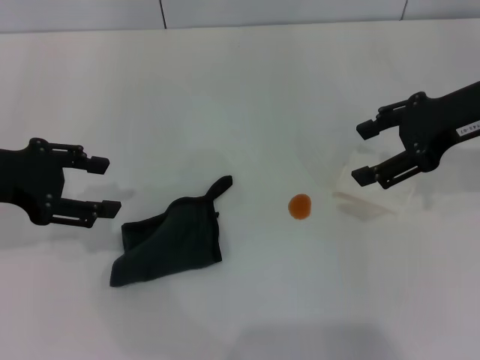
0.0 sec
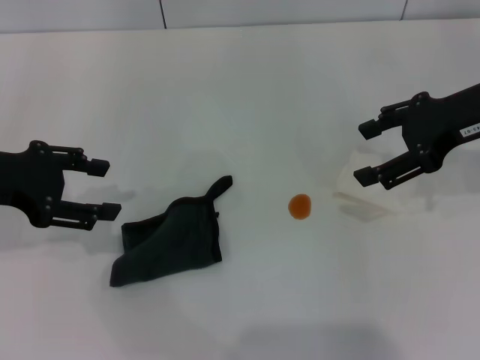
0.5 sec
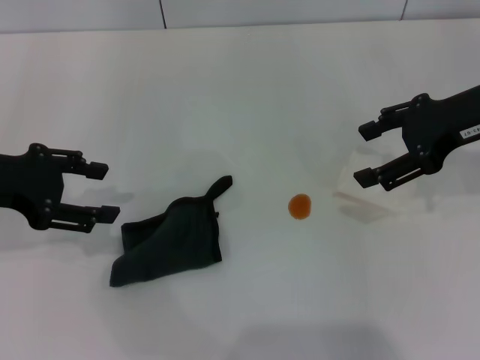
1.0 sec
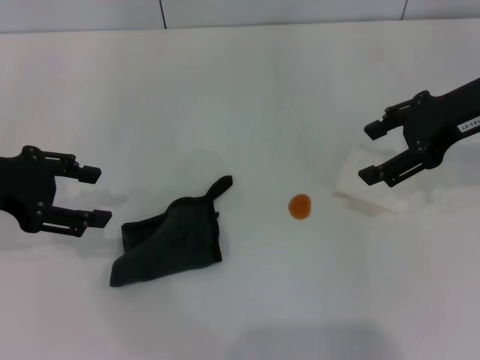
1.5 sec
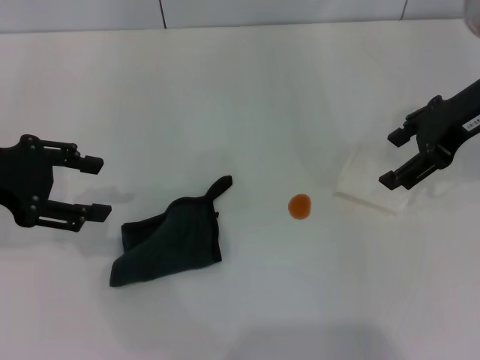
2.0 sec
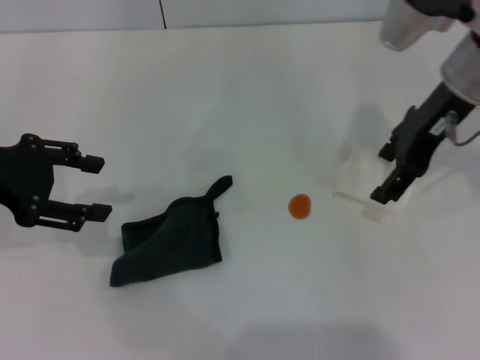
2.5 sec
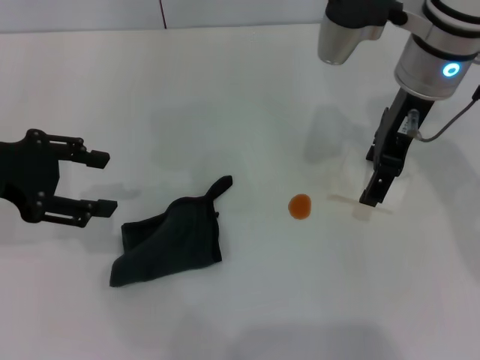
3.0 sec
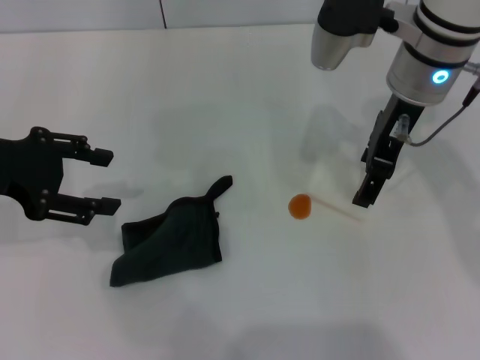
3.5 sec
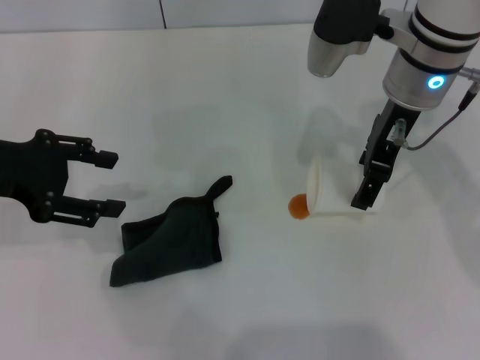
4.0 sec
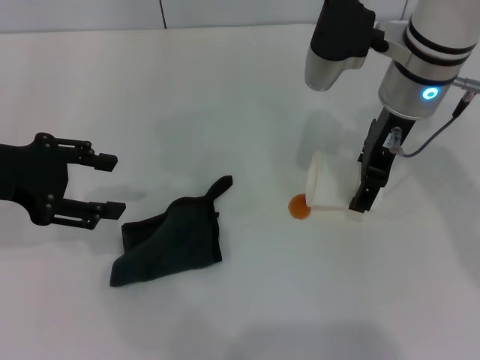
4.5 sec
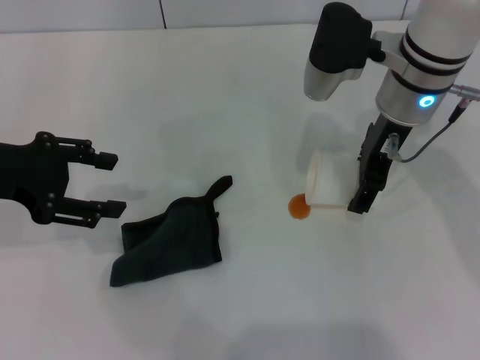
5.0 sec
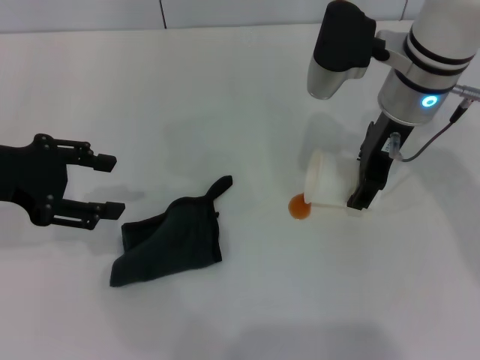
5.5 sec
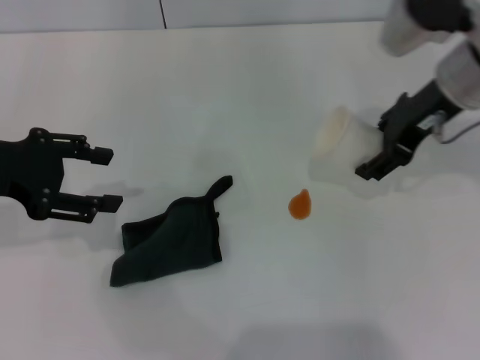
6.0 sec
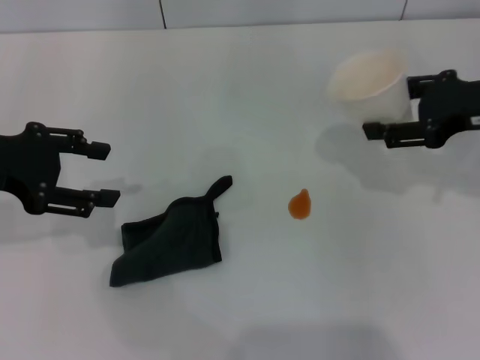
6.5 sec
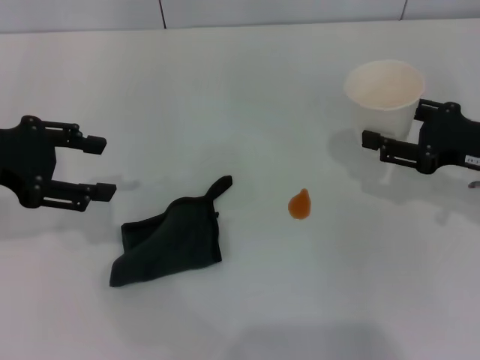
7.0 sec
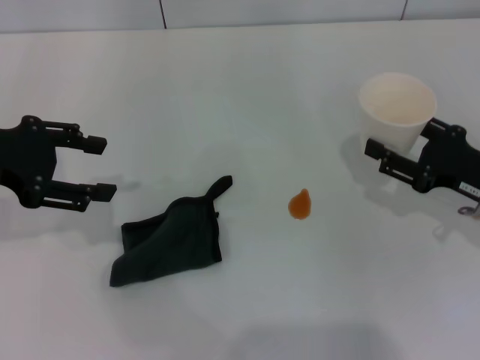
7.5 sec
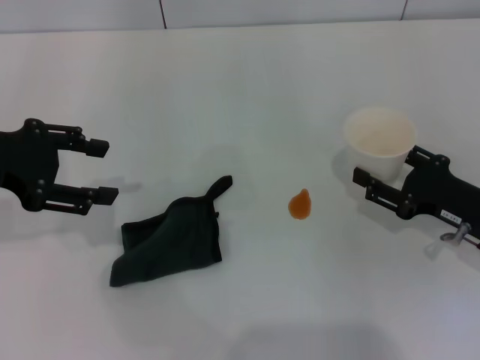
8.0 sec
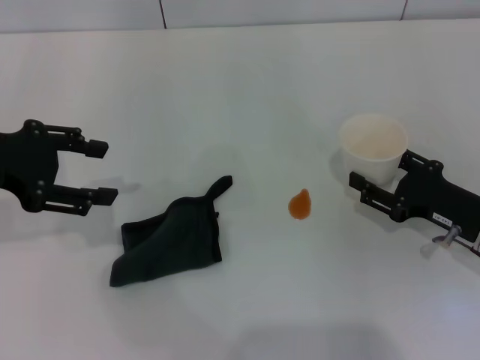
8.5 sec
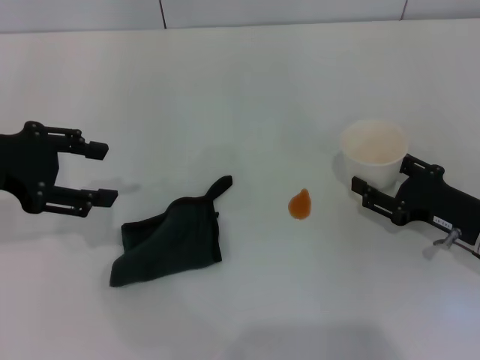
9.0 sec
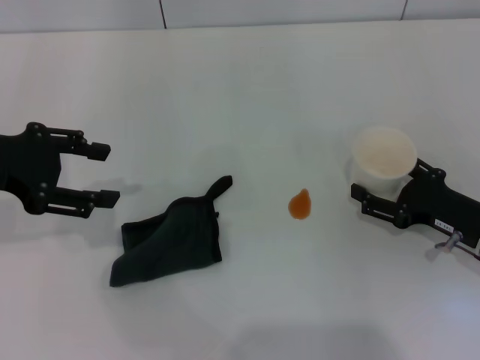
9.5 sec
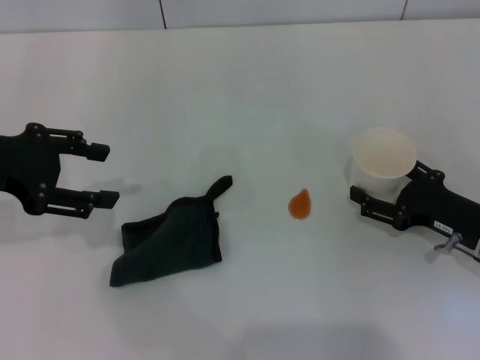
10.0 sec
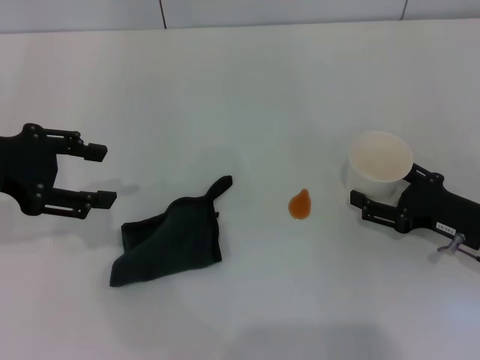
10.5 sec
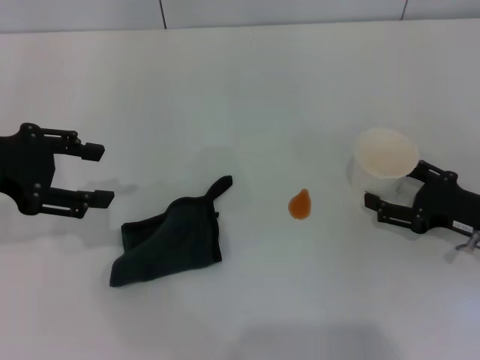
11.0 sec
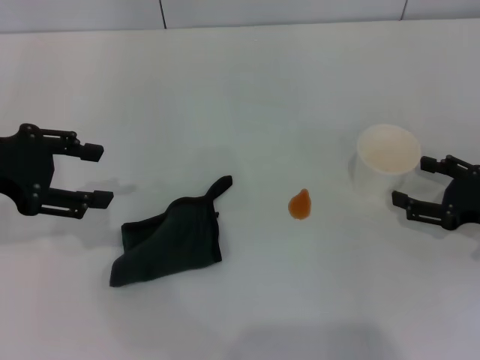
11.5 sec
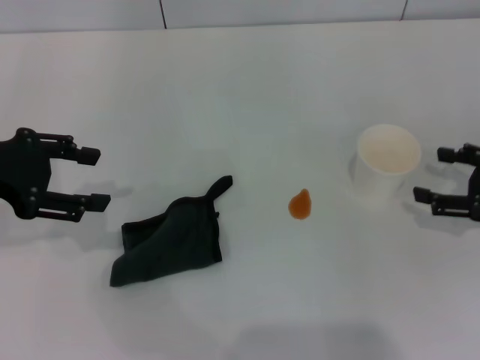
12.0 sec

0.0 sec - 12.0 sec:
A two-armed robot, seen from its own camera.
Step, 0.0 sec - 5.5 sec: Grasp the paper cup with the right gripper.
Step, 6.0 sec - 11.5 sec: Stand the paper cup upright with the right gripper.
0.0 sec - 2.0 sec: The grippers make only small movements.
2.0 sec - 4.0 sec: The right gripper moves to the left, some 10 cm.
4.0 sec - 6.0 sec: The right gripper shifts roughly 5 cm to the right, and closes.
6.0 sec - 8.0 sec: The right gripper heads downward, backward and to the right, covering approximately 20 cm.
8.0 sec - 10.0 sec: The right gripper opens.
10.0 sec - 12.0 sec: The right gripper goes some 10 cm to the right and upward.

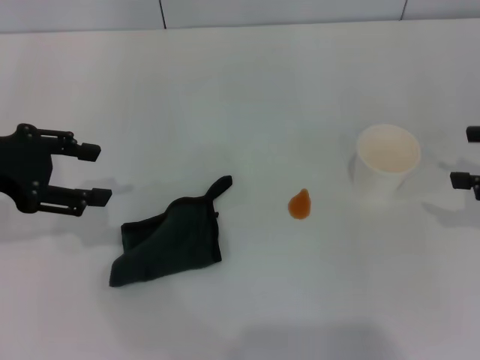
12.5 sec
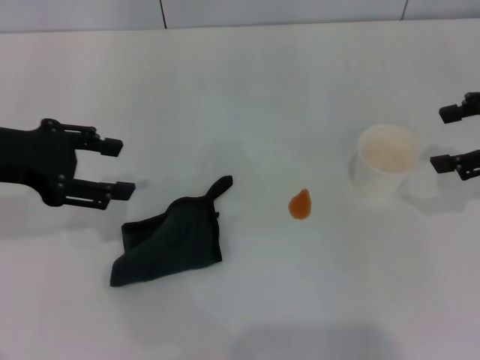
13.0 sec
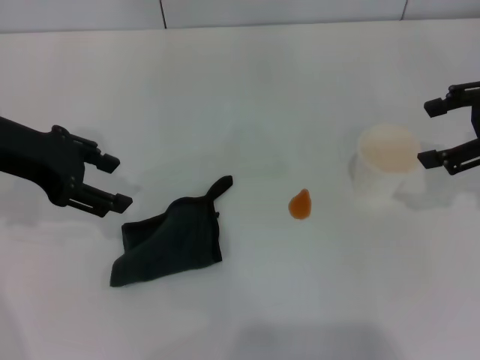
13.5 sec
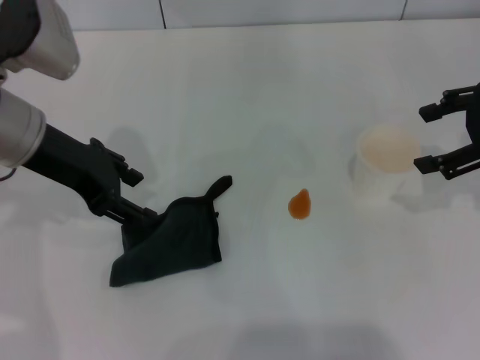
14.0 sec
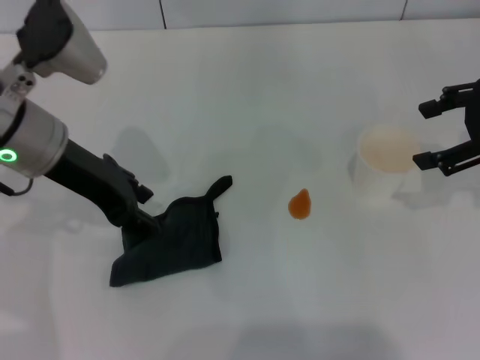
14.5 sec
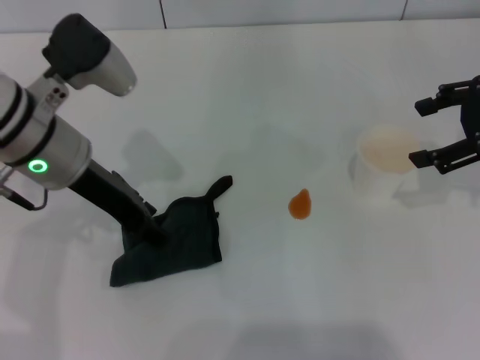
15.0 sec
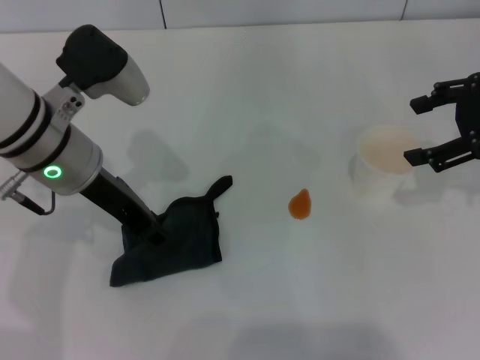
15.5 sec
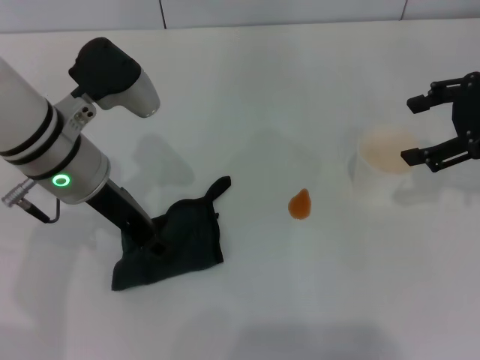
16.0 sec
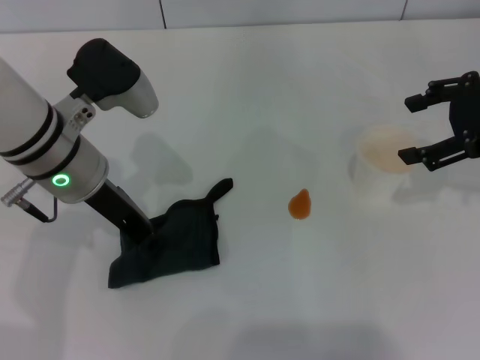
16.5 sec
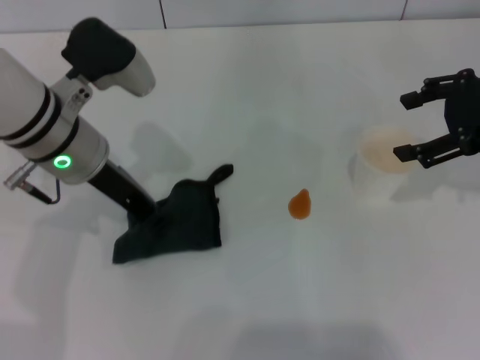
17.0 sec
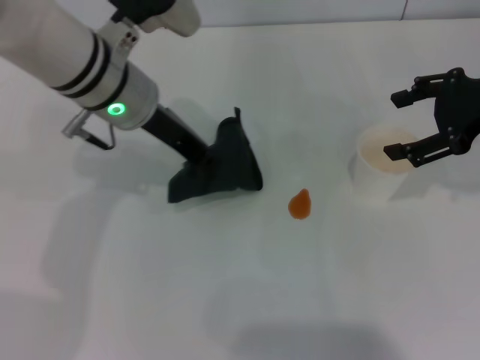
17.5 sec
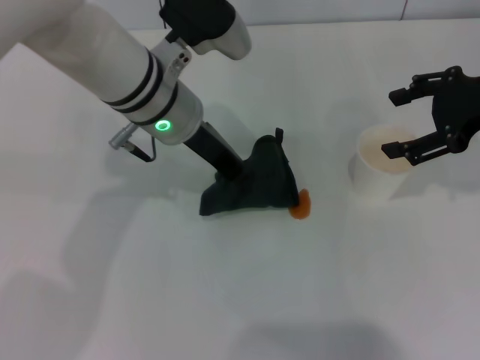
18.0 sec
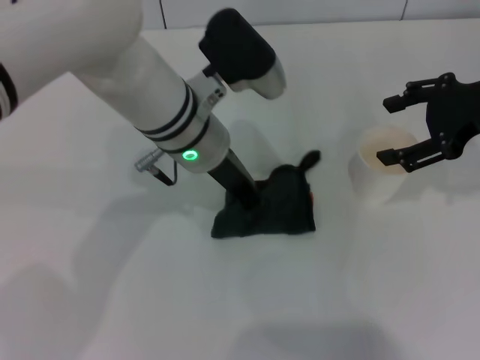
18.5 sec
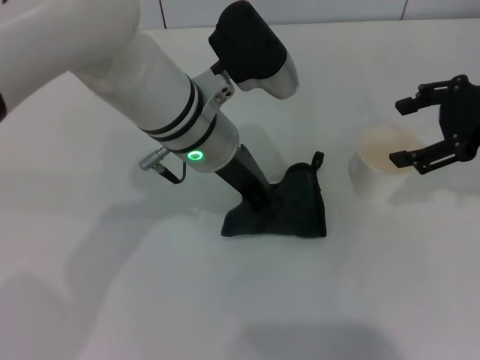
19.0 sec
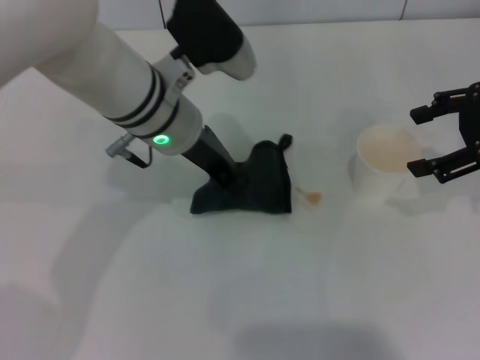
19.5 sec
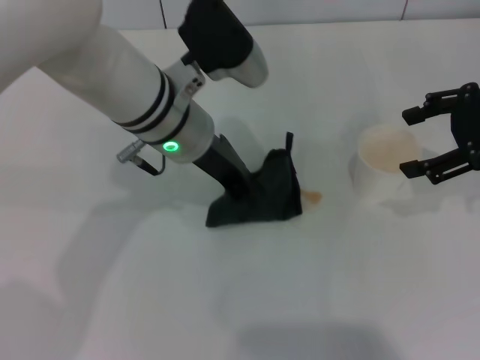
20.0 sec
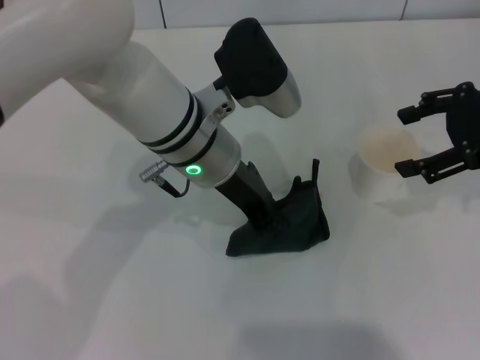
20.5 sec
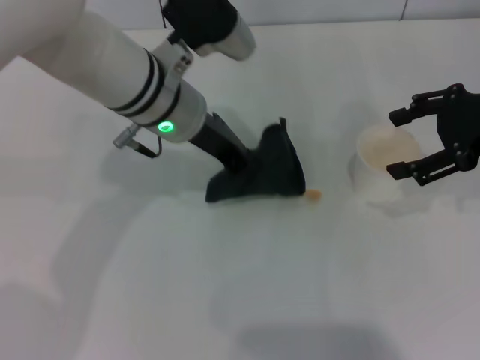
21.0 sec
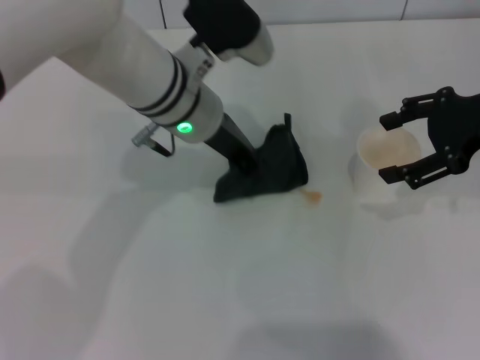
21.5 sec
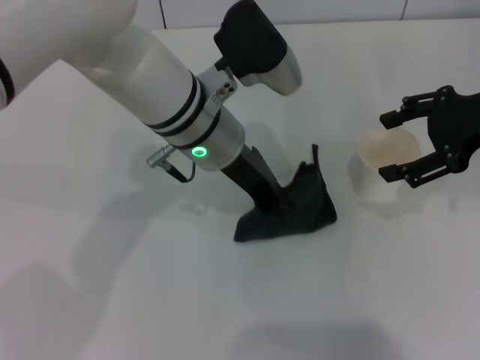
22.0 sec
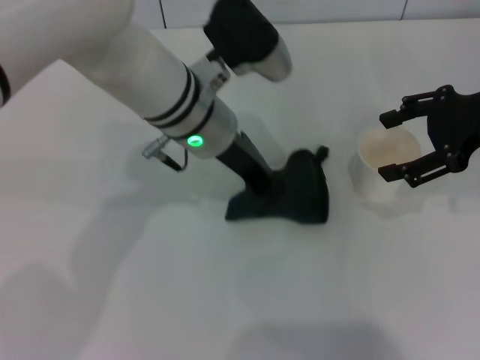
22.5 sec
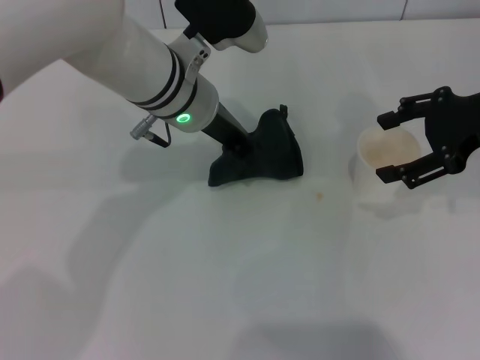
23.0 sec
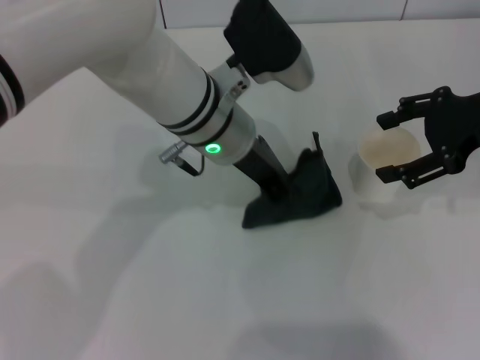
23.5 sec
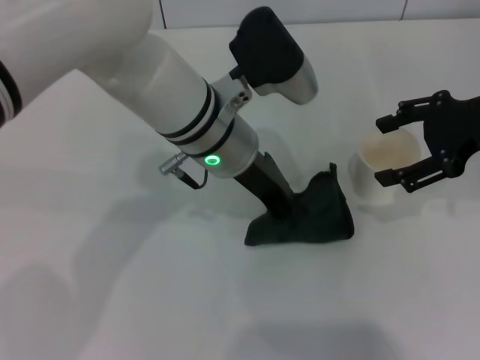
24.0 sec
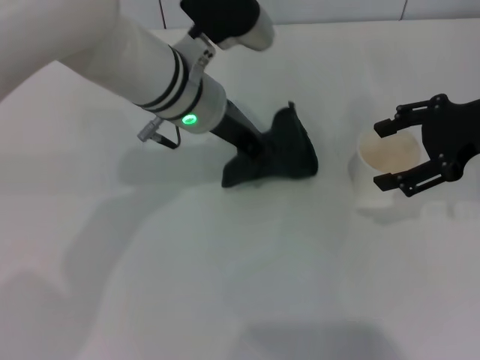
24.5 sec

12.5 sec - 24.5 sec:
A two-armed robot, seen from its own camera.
Step, 12.5 sec - 17.0 sec: Grasp the rag with the left gripper.
12.5 sec - 14.5 sec: The right gripper moves to the left, upward and forward, approximately 10 cm. The left gripper shifts about 10 cm to the right.
14.5 sec - 16.5 sec: The left gripper closes up.
16.5 sec - 18.5 sec: The left gripper goes approximately 10 cm to the right.
18.5 sec - 24.5 sec: The grippers make only small movements.

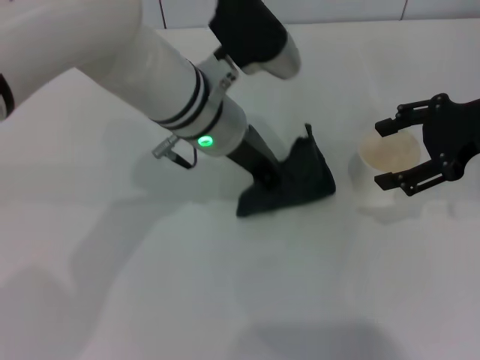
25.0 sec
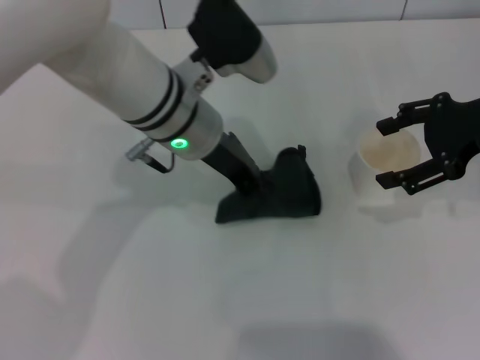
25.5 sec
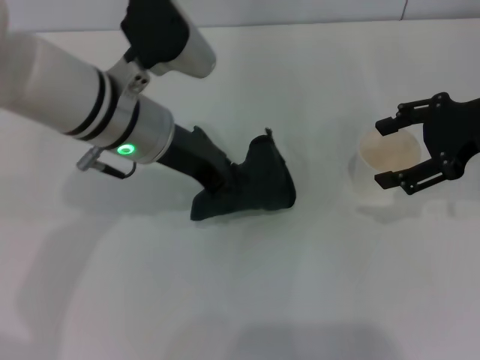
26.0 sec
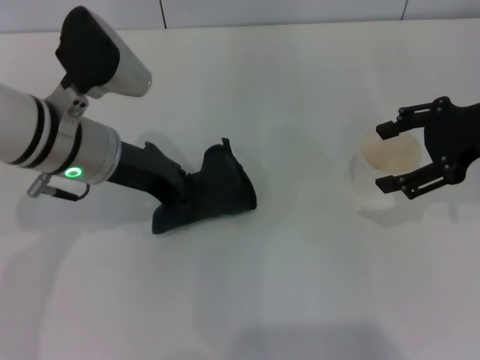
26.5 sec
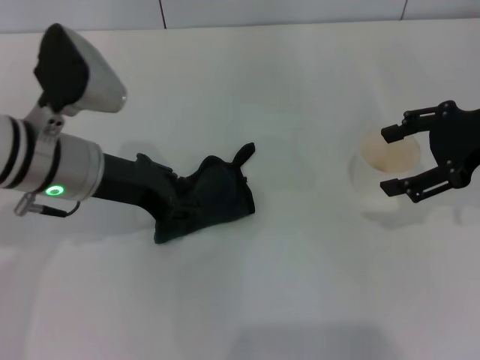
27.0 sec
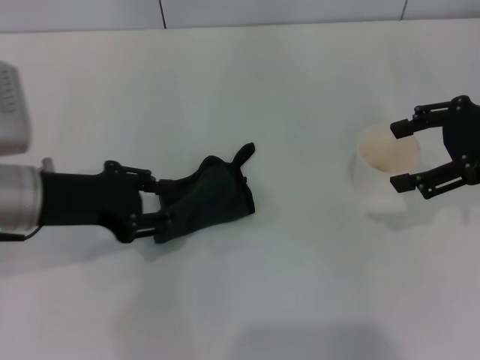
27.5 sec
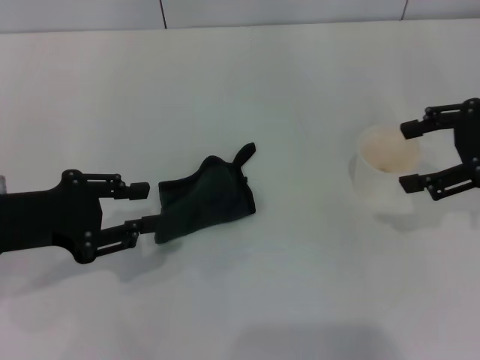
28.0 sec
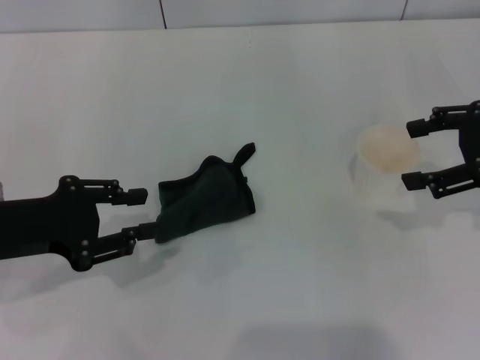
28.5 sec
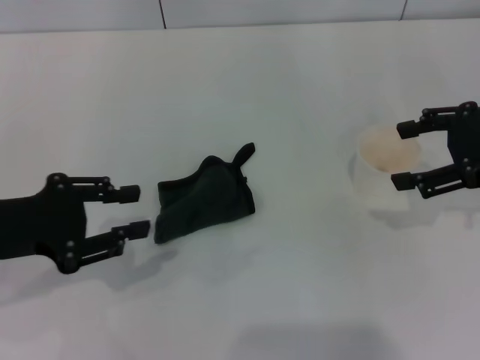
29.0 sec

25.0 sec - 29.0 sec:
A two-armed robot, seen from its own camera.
Step, 27.0 sec - 27.5 sec: Place the rag on the table with the left gripper.
25.0 sec - 27.0 sec: The left gripper goes some 15 cm to the left, and opens up.
27.0 sec - 29.0 sec: The left gripper heads to the left and backward, covering approximately 15 cm.
